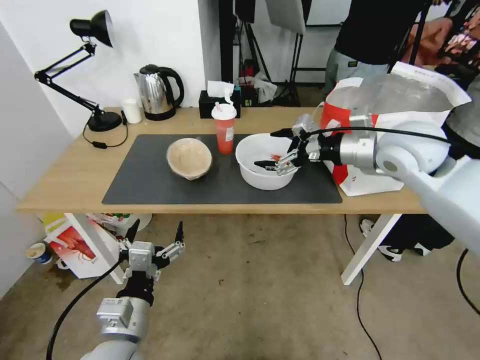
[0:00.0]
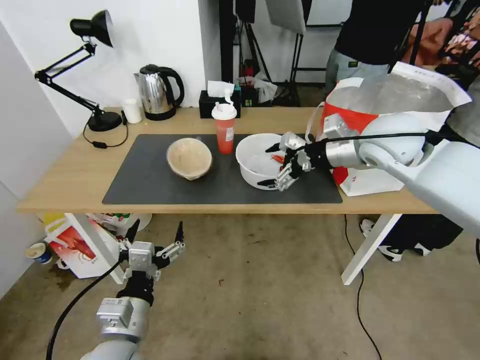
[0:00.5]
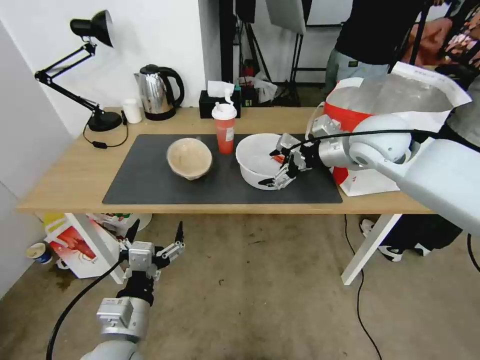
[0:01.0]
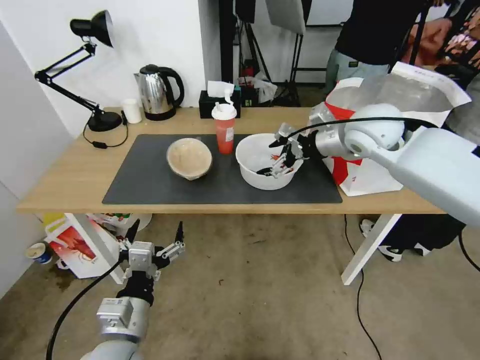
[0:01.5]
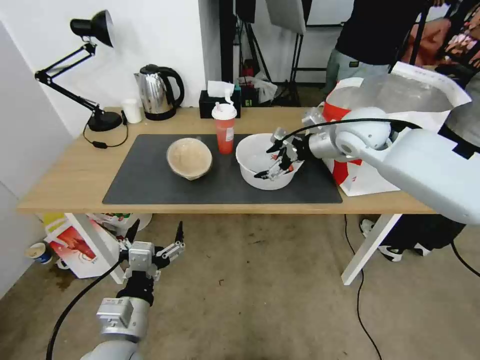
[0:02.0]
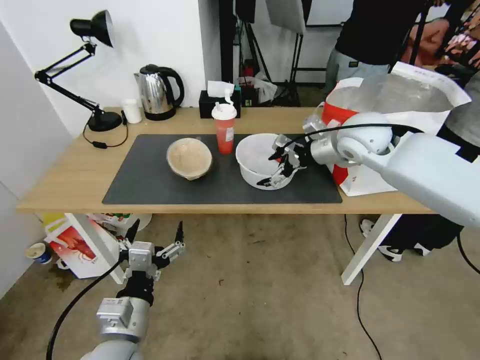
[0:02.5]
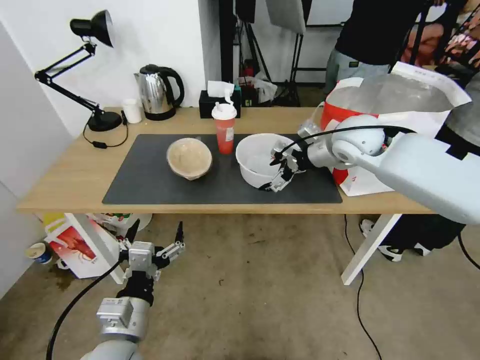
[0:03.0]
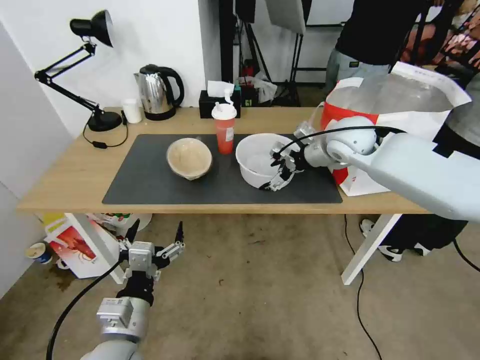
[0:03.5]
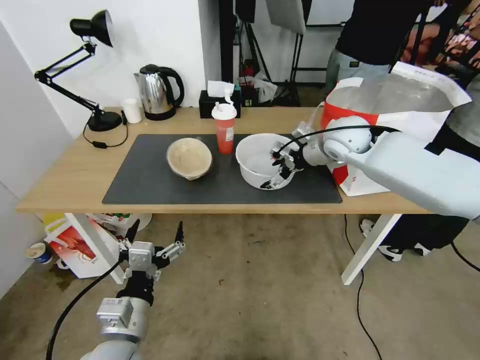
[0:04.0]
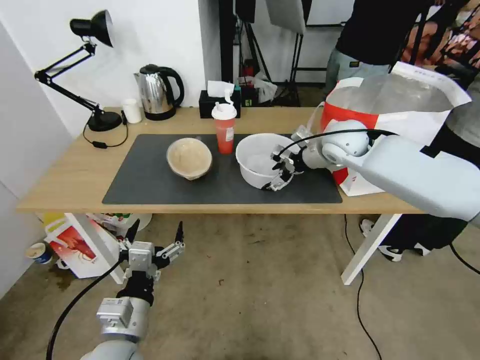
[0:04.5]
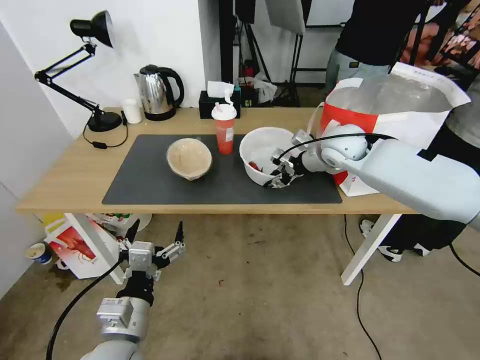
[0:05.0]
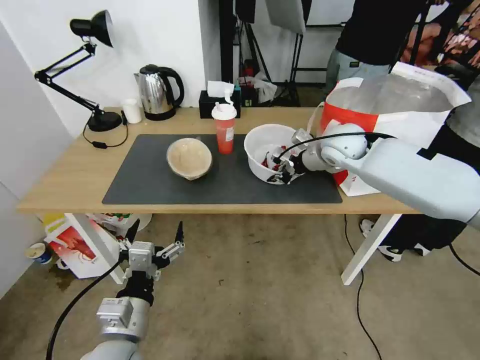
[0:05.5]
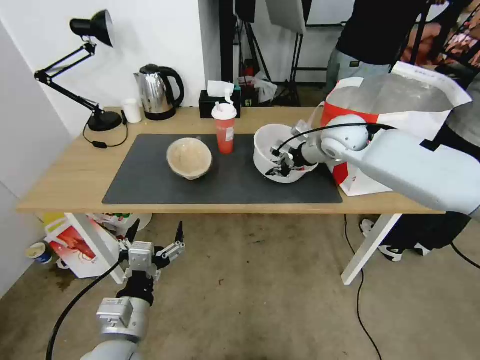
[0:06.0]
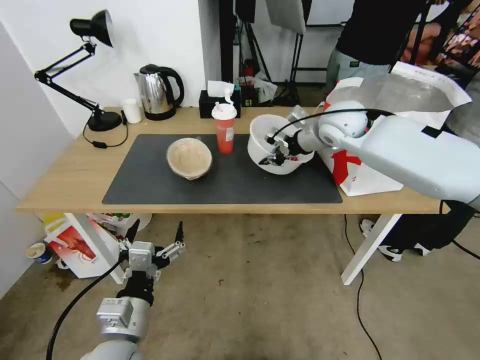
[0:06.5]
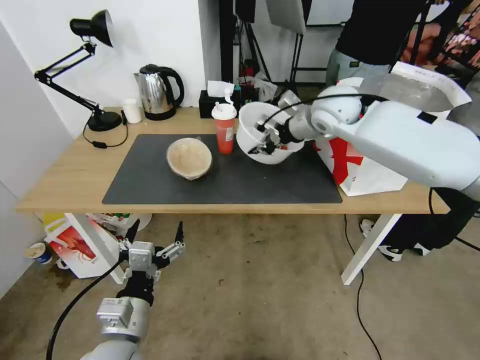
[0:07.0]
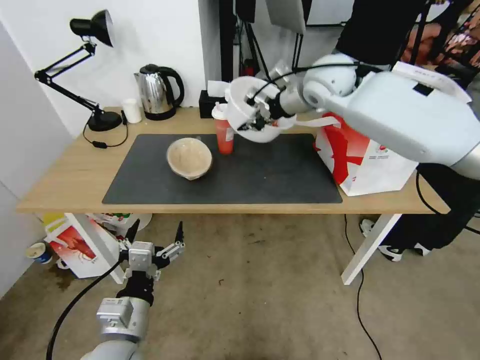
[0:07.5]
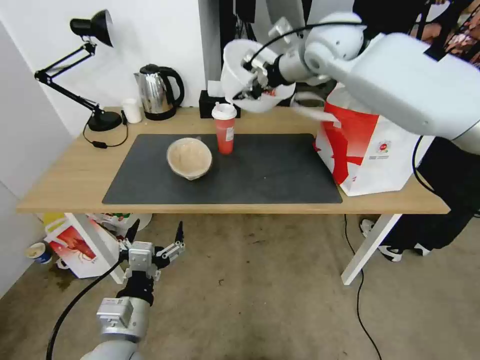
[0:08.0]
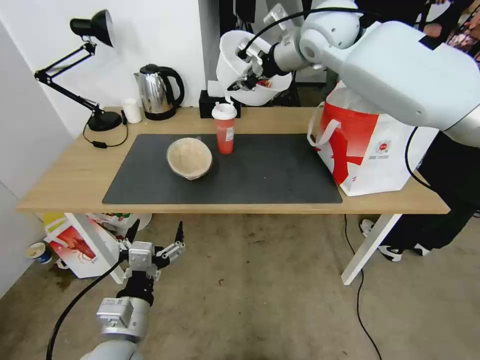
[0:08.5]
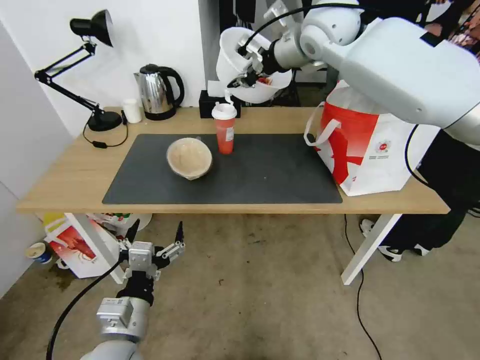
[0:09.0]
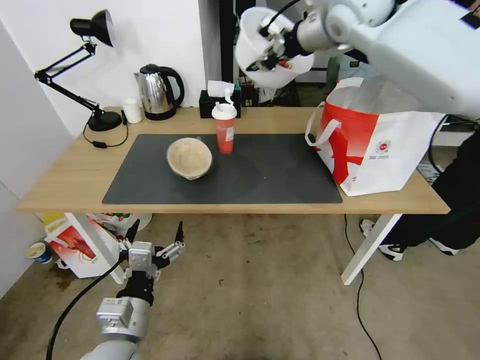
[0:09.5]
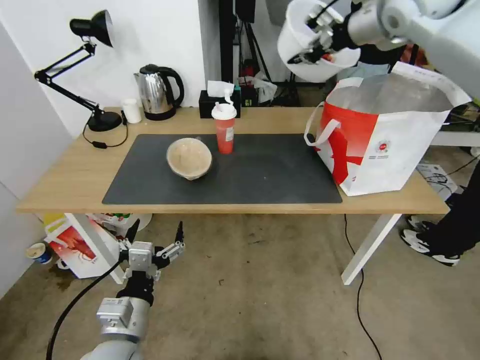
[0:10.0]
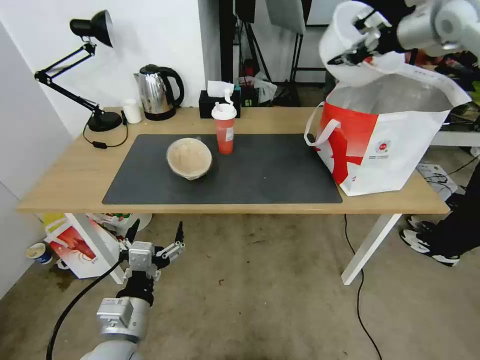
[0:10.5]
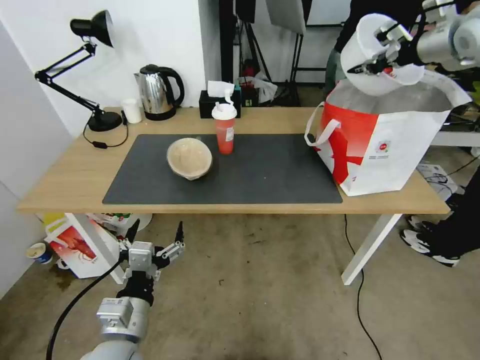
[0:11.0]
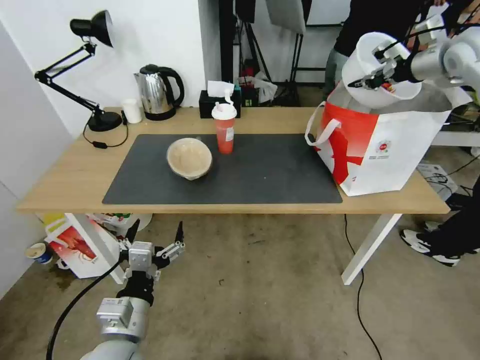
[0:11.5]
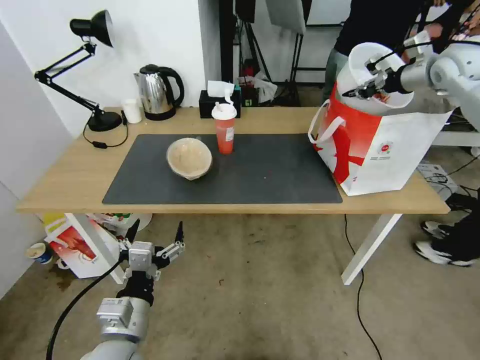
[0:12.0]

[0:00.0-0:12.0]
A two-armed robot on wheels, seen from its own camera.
Task of the whole recording: Pick up the trash from the table and place it into the takeout bag.
0.0 to 2.0 s: The right gripper moves forward, roughly 10 cm.
2.0 to 4.0 s: The right gripper changes place by approximately 5 cm.
4.0 to 6.0 s: The right gripper closes.
6.0 to 8.0 s: The right gripper shifts some 20 cm upward.
8.0 to 10.0 s: The right gripper goes some 10 cm to the right and upward.
10.0 to 12.0 s: The right gripper travels to the right and downward by about 20 cm.

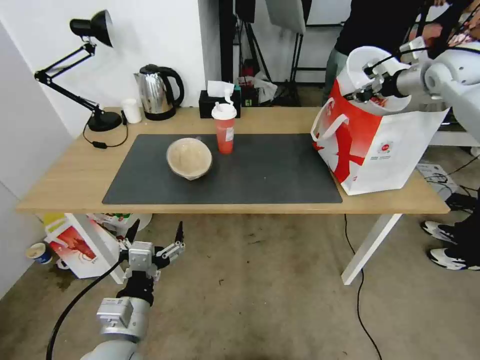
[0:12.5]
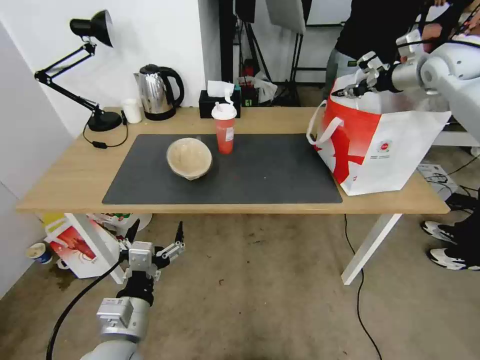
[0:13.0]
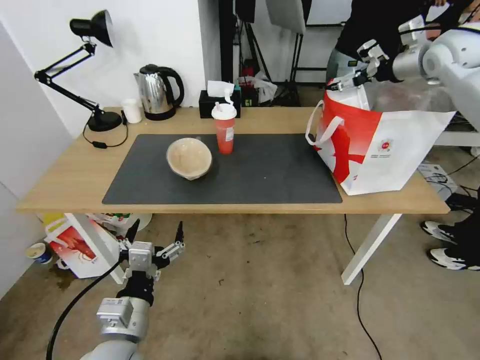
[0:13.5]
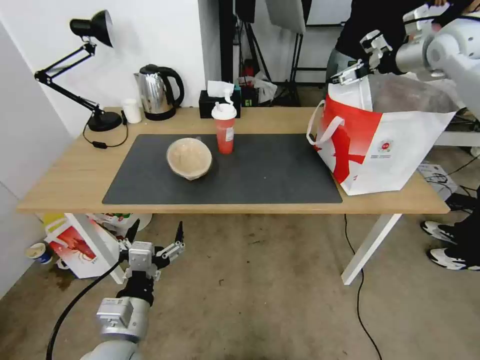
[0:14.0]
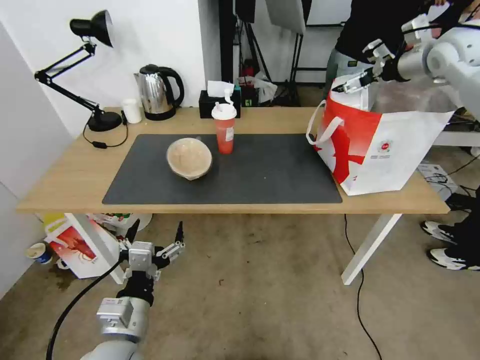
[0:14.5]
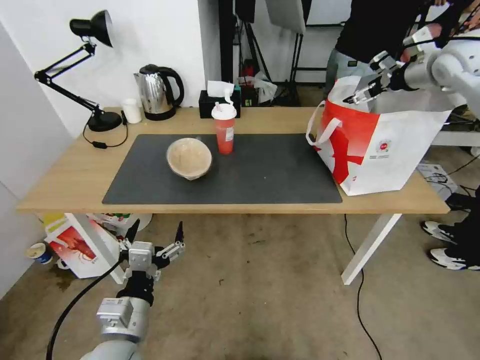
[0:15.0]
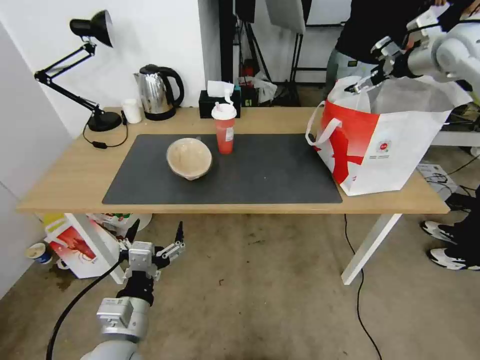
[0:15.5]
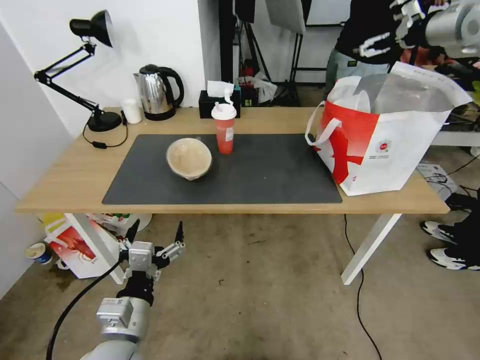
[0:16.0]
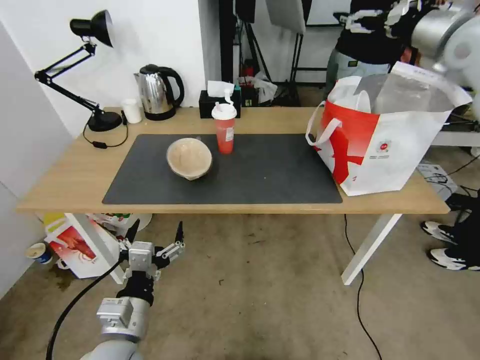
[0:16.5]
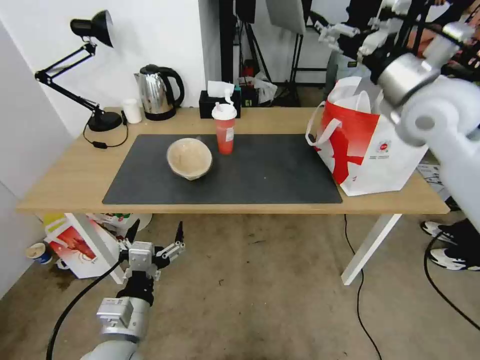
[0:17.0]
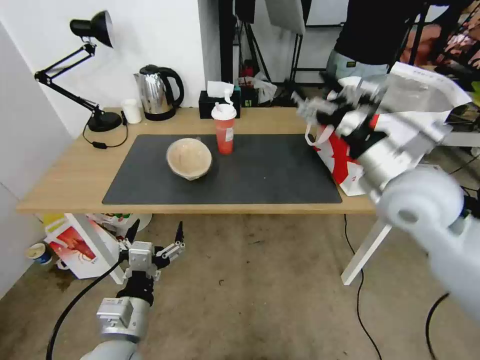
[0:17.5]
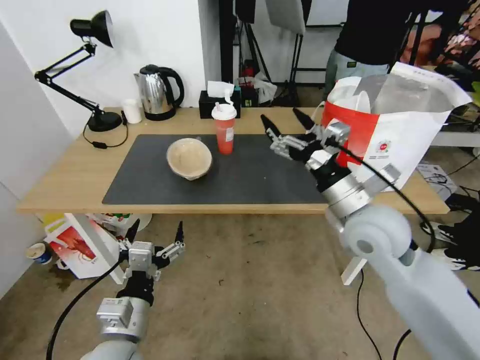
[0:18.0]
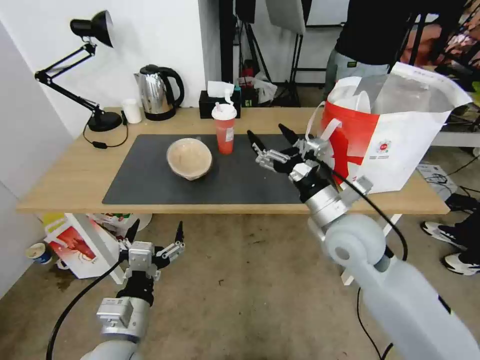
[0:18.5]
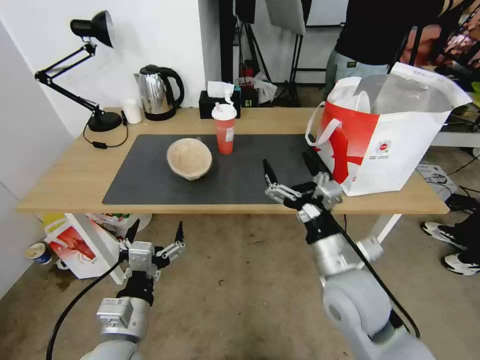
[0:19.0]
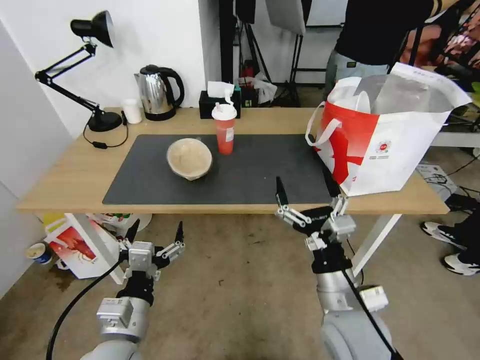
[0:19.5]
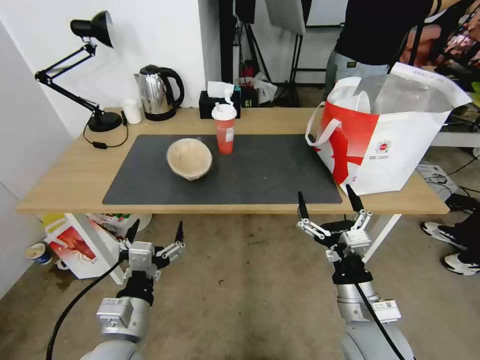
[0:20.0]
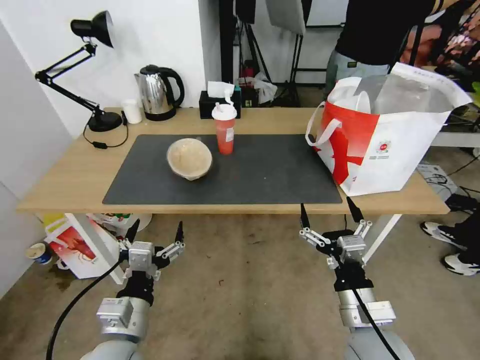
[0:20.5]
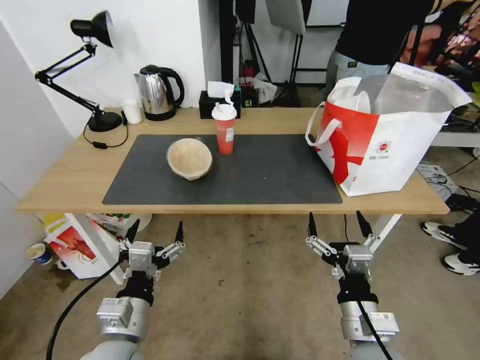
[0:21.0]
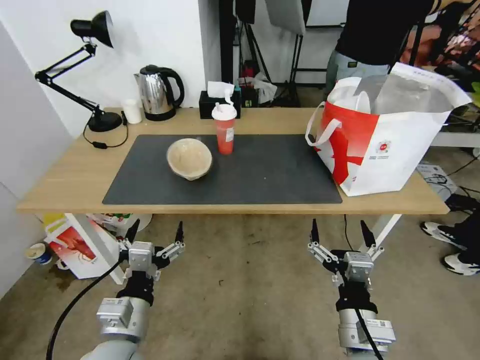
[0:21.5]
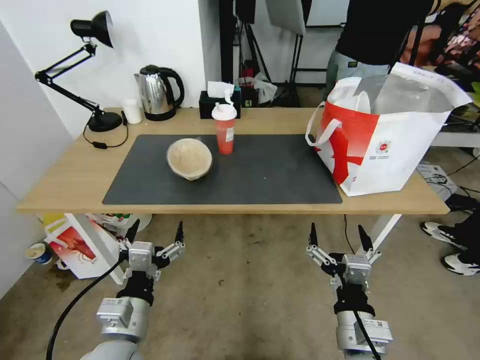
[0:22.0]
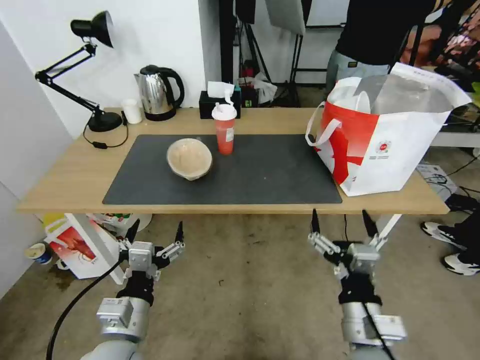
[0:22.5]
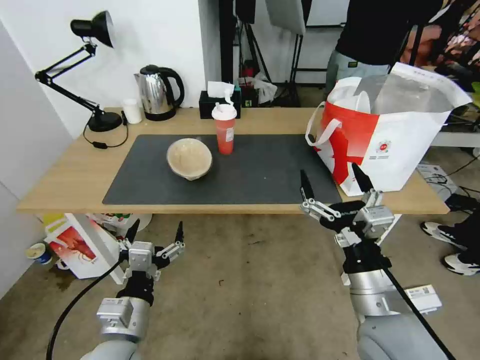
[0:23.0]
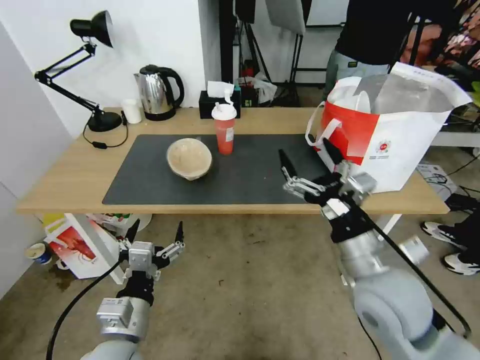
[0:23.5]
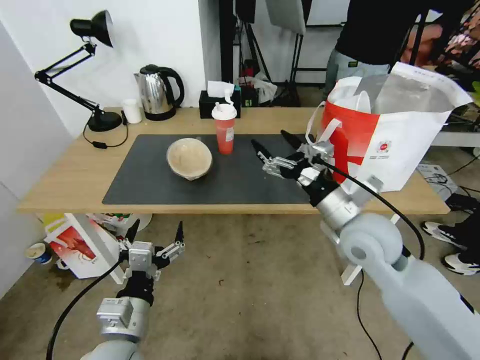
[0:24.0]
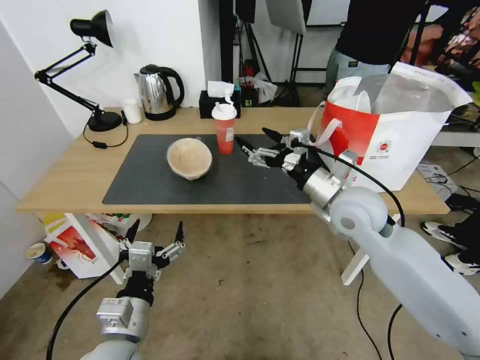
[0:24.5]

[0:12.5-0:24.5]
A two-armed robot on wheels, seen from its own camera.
Task of the whole recording: Pick up the trash from the table and place it into the takeout bag.
12.5 to 14.5 s: The right gripper opens its fingers.
14.5 to 16.5 s: The right gripper goes roughly 5 cm backward.
16.5 to 18.5 s: The right gripper shifts roughly 40 cm downward, backward and to the left.
18.5 to 20.5 s: The right gripper travels backward and downward by about 20 cm.
20.5 to 22.5 s: The grippers stay close to where they were, moving slightly.
22.5 to 24.5 s: The right gripper is displaced forward and upward by some 25 cm.

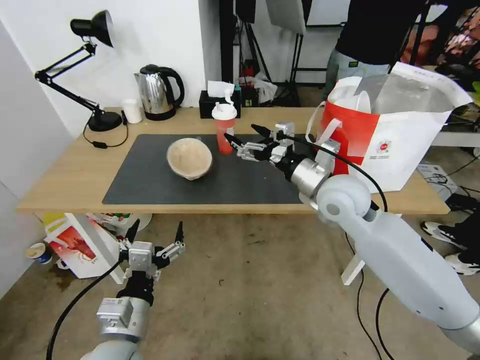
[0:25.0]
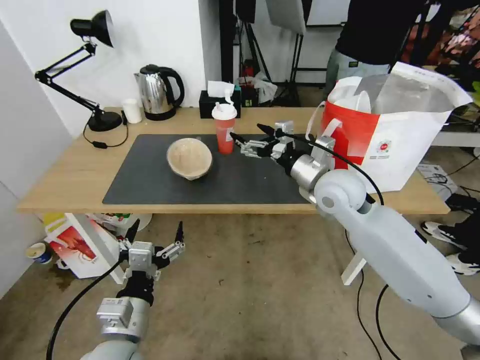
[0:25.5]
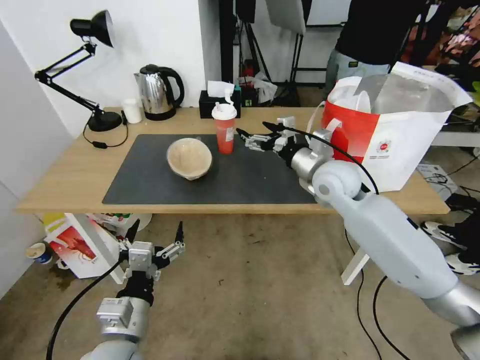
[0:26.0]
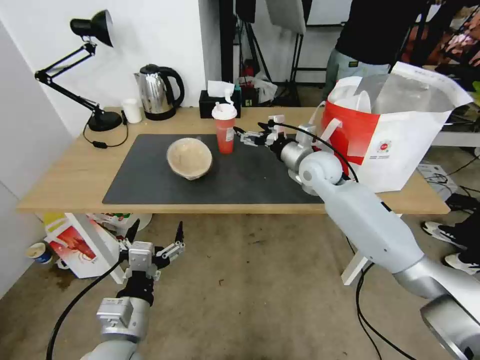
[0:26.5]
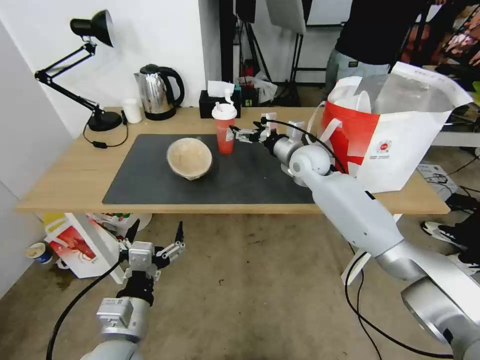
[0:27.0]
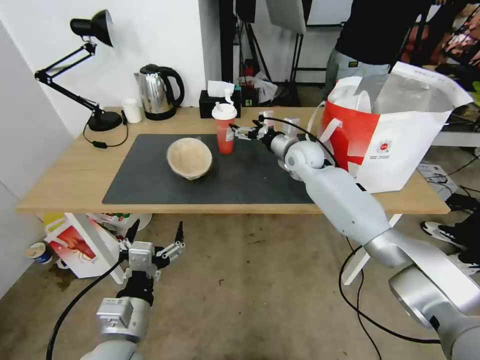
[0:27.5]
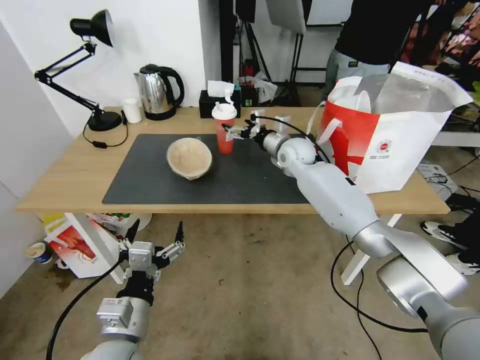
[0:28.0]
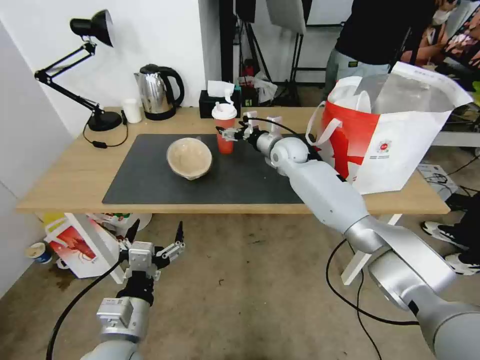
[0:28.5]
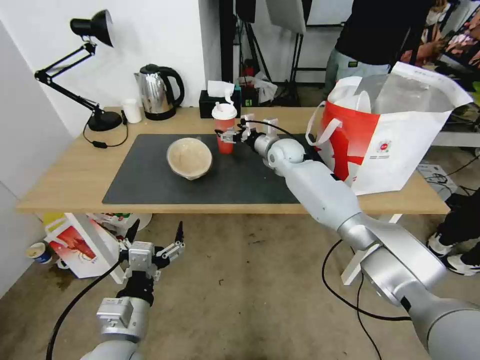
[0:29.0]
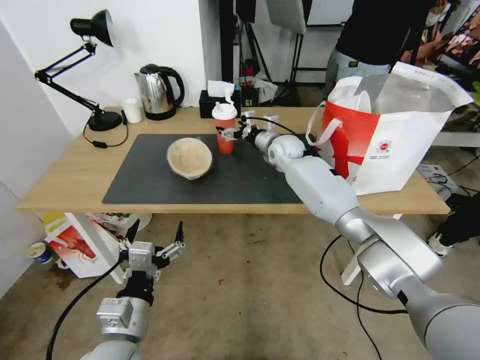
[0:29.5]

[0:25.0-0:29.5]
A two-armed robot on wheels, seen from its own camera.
Task of the whole recording: Pick up the trash from the table and place it into the takeout bag.
25.0 to 27.0 s: The right gripper heads forward, covering approximately 15 cm.
27.0 to 29.5 s: The right gripper heads forward, covering about 5 cm.
